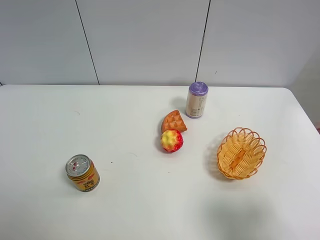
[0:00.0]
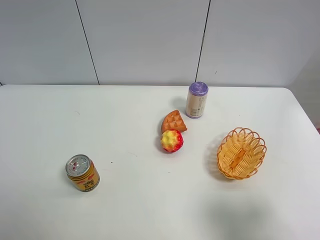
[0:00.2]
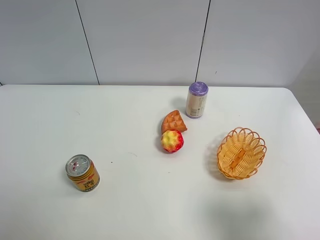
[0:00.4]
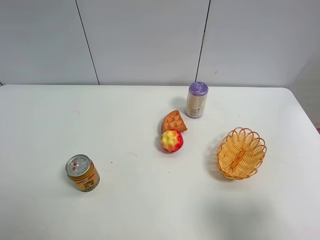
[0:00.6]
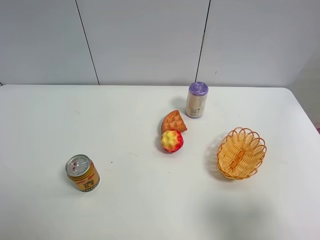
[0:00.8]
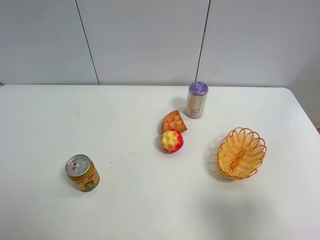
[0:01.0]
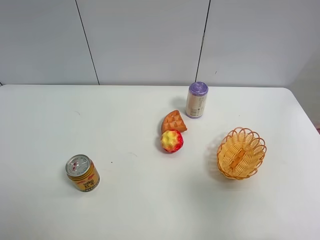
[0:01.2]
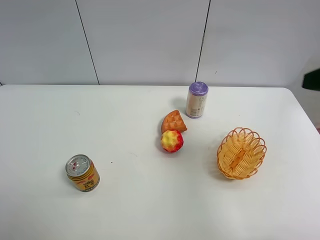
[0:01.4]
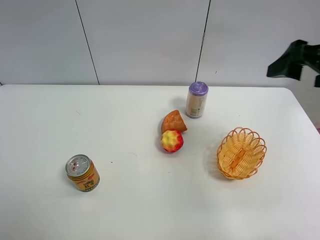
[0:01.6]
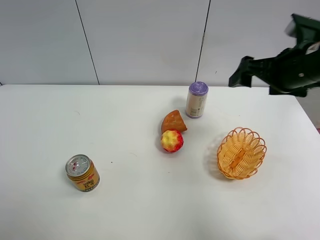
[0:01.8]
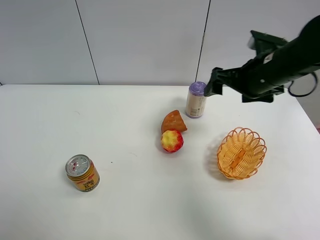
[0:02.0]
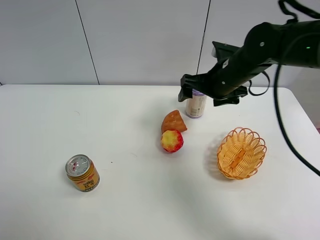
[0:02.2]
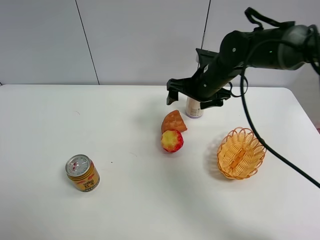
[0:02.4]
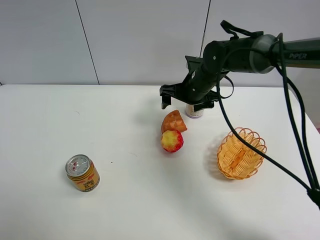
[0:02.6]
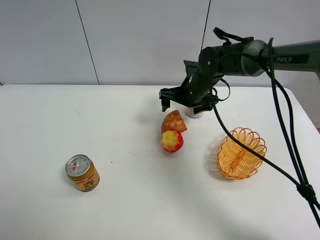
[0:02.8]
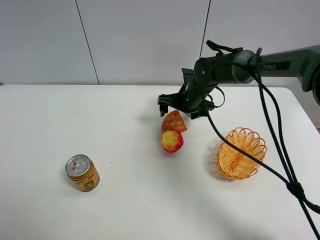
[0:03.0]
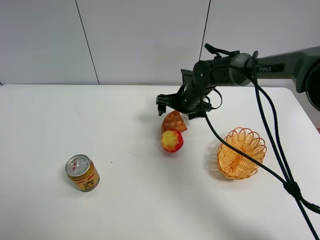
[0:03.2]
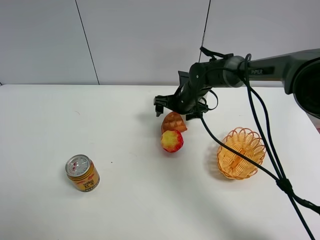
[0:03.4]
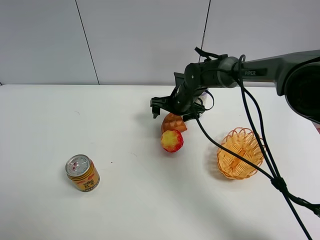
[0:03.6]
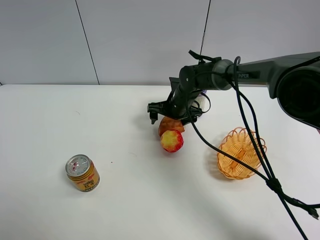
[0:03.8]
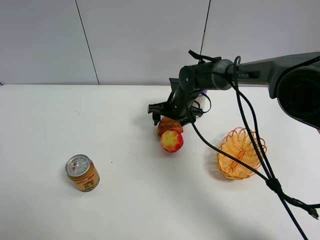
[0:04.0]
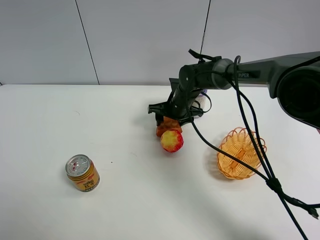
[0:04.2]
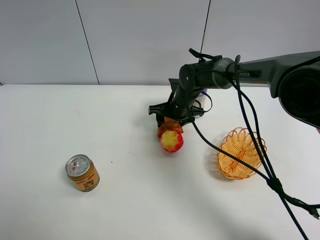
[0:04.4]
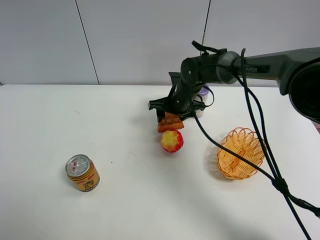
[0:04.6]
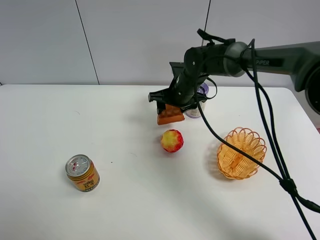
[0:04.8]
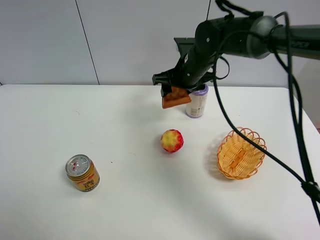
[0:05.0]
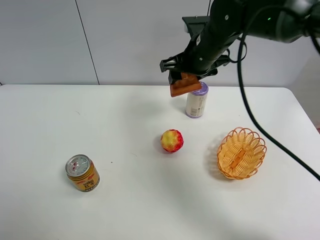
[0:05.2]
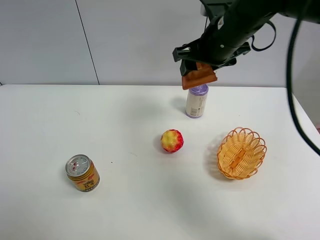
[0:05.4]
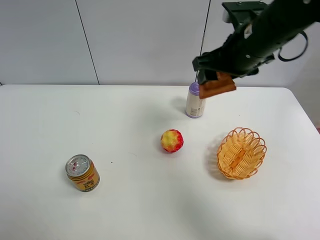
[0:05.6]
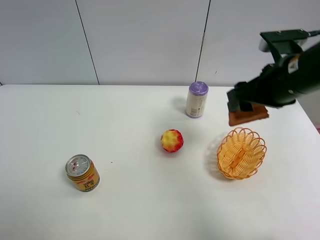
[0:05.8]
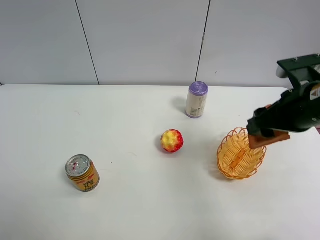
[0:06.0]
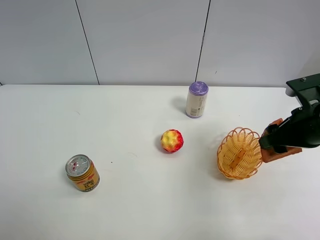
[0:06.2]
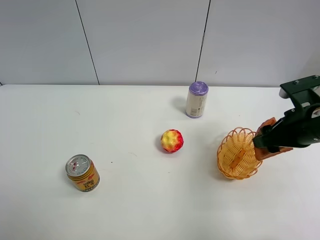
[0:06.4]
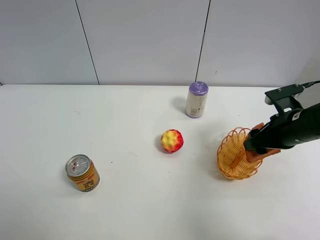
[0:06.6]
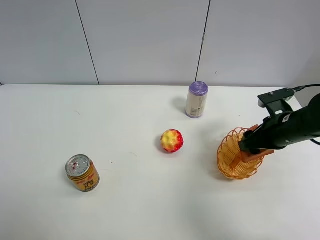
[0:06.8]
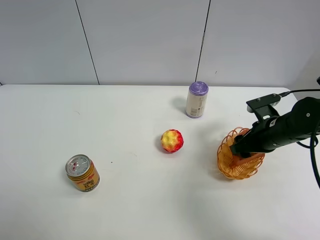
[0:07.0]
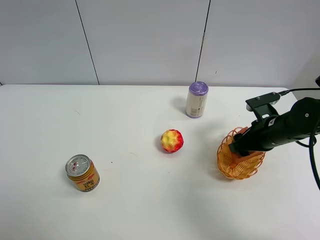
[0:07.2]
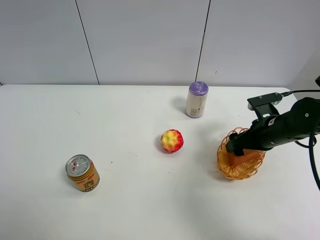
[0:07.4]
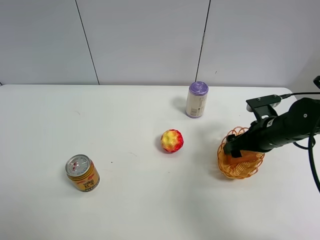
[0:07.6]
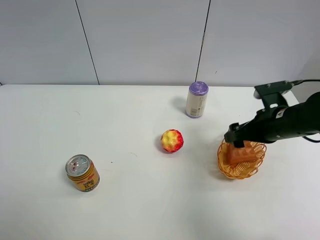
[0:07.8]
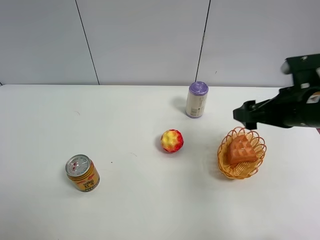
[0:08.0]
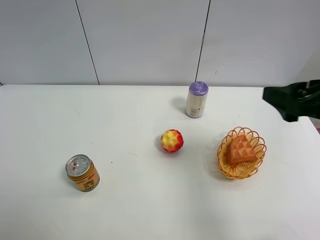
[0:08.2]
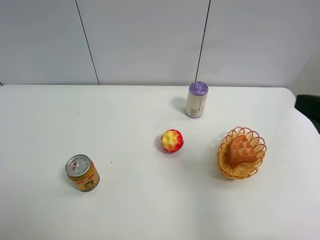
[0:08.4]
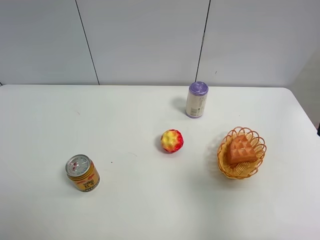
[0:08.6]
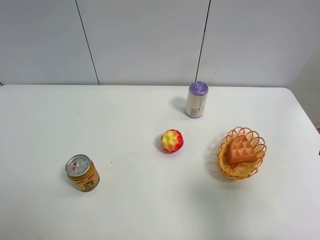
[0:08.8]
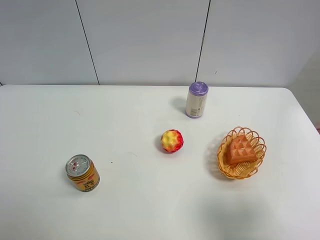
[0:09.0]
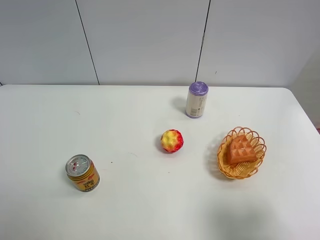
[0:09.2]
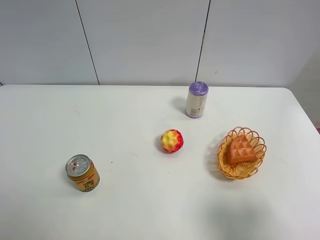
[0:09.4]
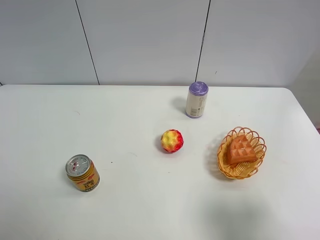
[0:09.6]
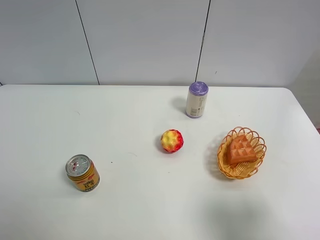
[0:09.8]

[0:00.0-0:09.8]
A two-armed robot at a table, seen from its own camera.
Task of the whole recording: Put the bakery in the basket.
Step, 0:00.0 to 0:04.0: Grasp the bread with right gripper.
Step, 0:04.2 to 0:08.0: Place the bread in the basket with right gripper.
0:00.0 to 0:01.4: The right gripper heads forward and upward, covering roughly 15 cm.
0:01.4 to 0:02.8: The right gripper travels forward, downward and to the left by roughly 35 cm.
0:02.8 to 0:04.2: The right gripper travels downward by approximately 5 cm, and closes its fingers.
0:04.2 to 0:05.6: The right gripper shifts roughly 25 cm upward, backward and to the right.
0:05.6 to 0:07.0: The right gripper moves downward and to the right, some 20 cm.
0:07.0 to 0:08.4: The right gripper moves upward and backward, about 25 cm, and opens.
0:08.4 to 0:09.8: The right gripper shifts roughly 10 cm backward and downward.
